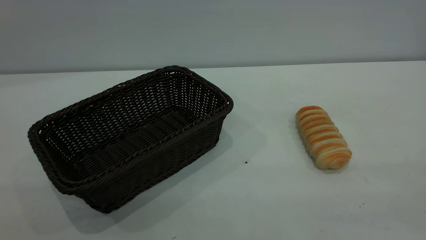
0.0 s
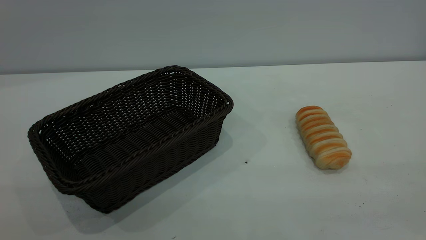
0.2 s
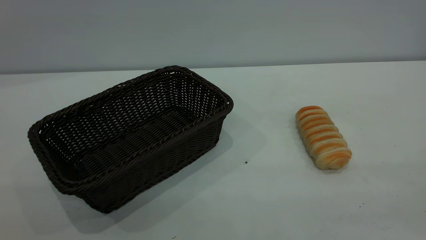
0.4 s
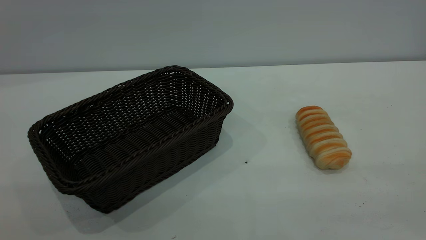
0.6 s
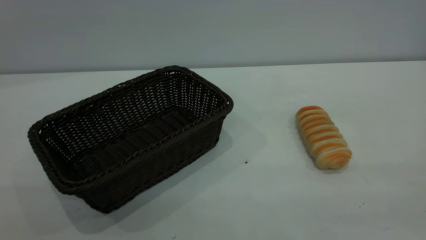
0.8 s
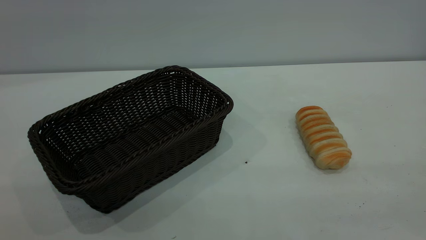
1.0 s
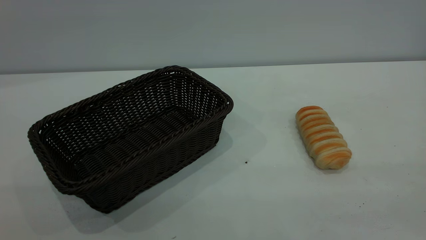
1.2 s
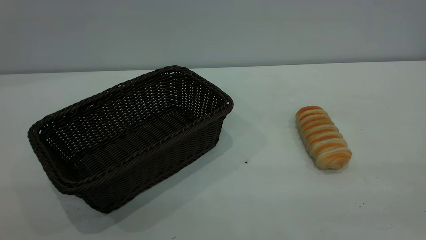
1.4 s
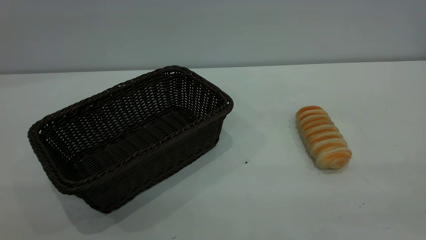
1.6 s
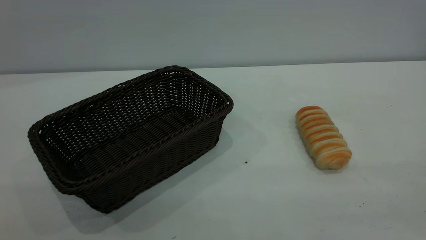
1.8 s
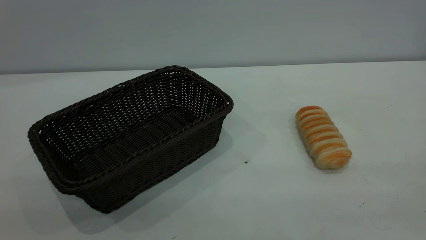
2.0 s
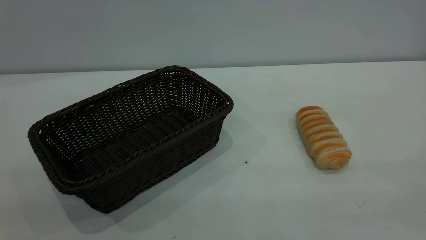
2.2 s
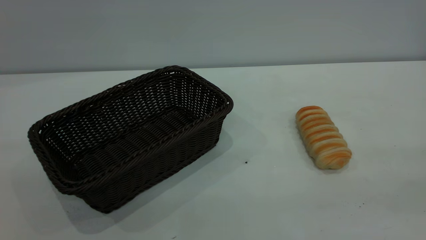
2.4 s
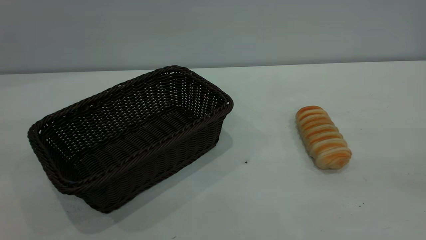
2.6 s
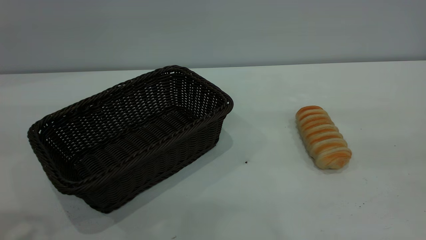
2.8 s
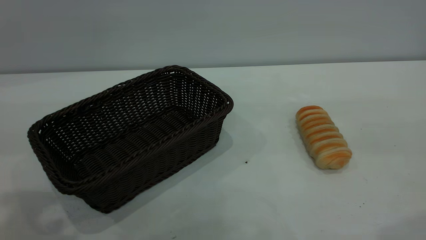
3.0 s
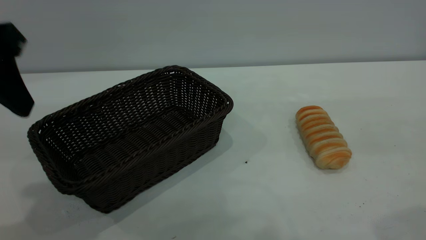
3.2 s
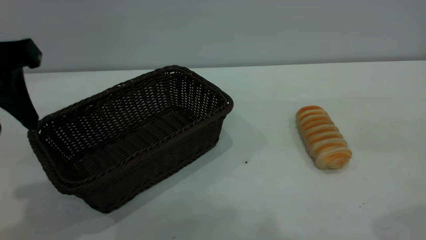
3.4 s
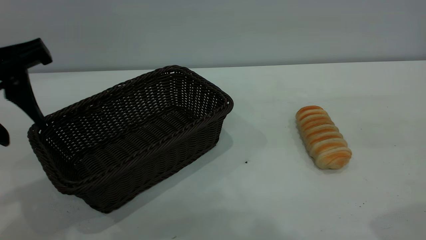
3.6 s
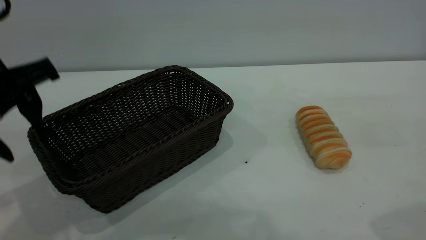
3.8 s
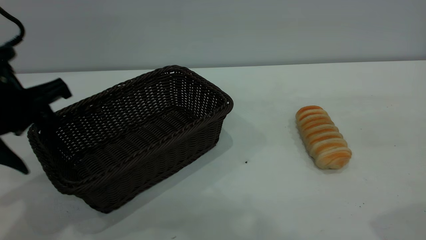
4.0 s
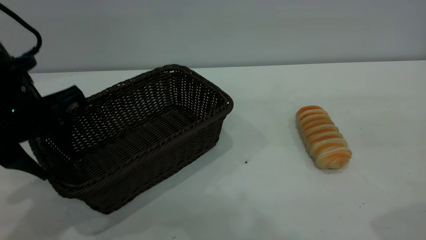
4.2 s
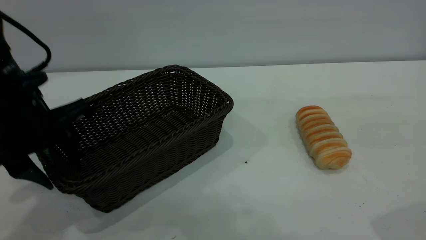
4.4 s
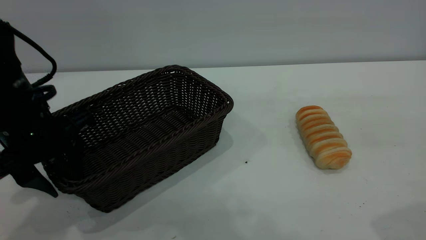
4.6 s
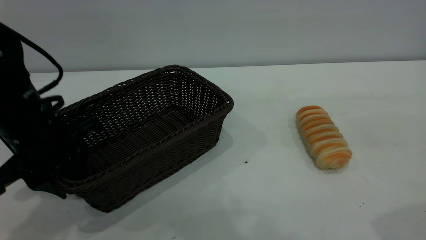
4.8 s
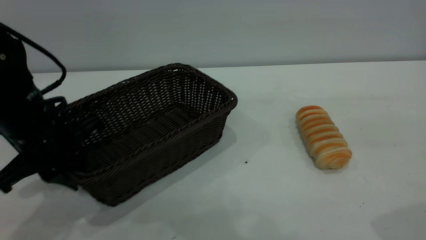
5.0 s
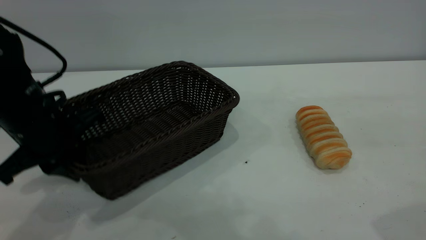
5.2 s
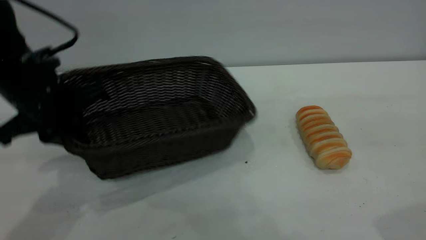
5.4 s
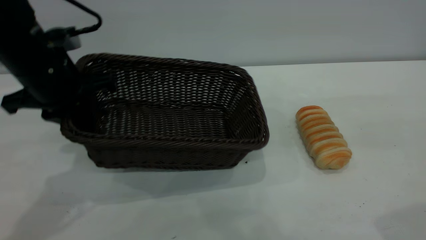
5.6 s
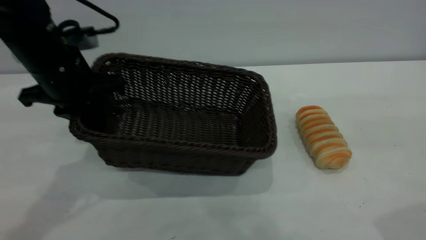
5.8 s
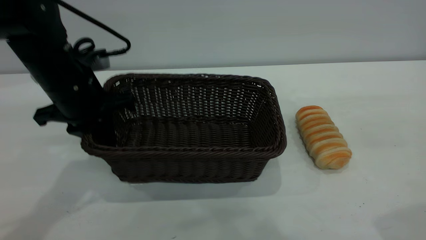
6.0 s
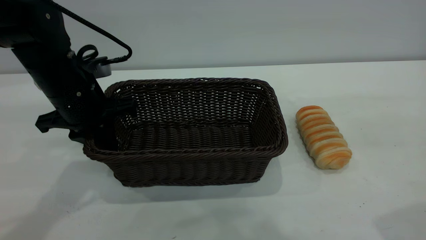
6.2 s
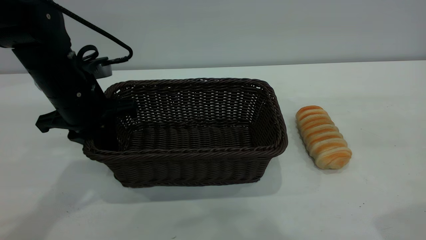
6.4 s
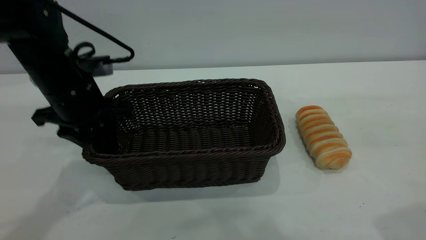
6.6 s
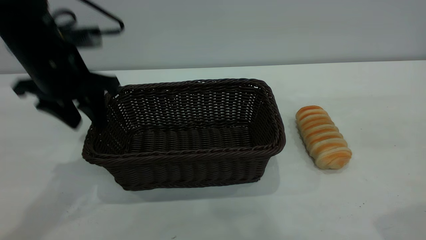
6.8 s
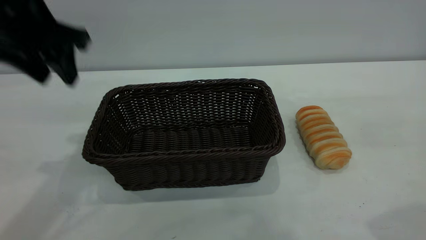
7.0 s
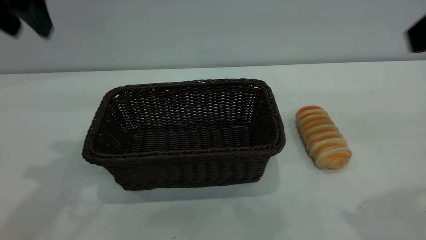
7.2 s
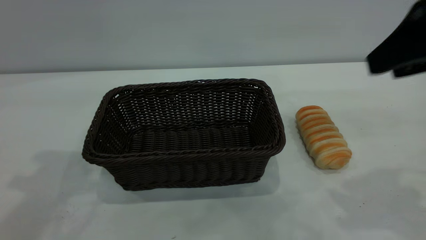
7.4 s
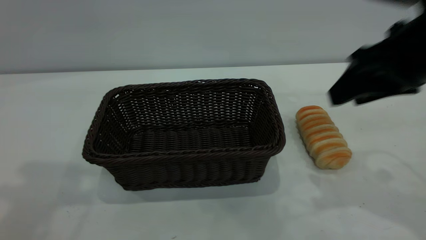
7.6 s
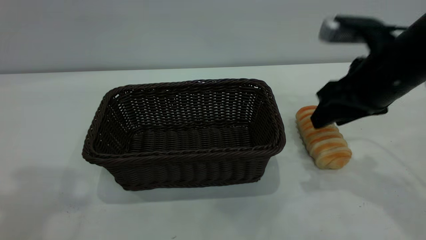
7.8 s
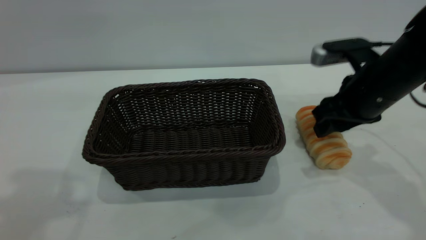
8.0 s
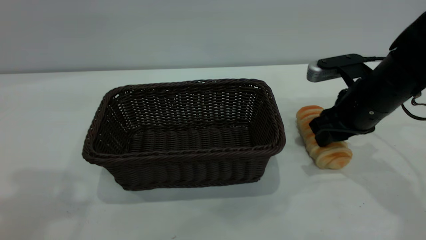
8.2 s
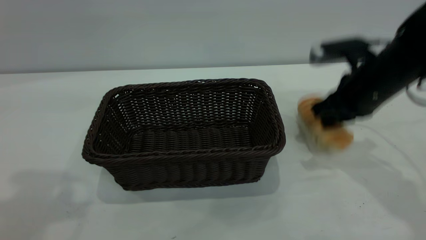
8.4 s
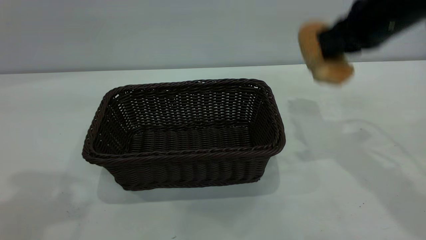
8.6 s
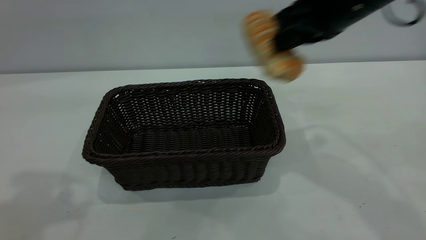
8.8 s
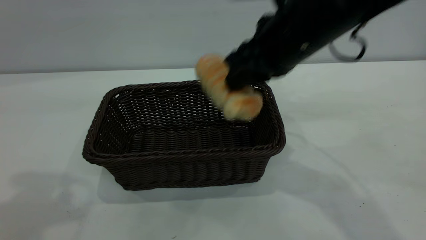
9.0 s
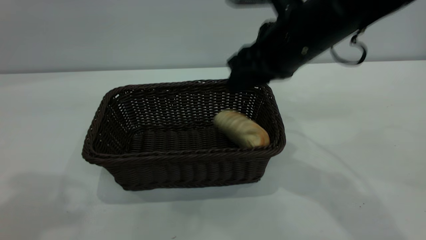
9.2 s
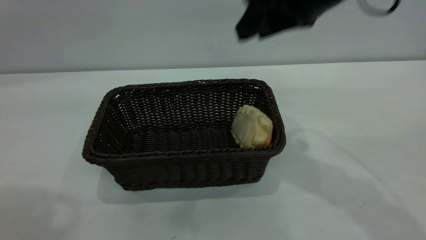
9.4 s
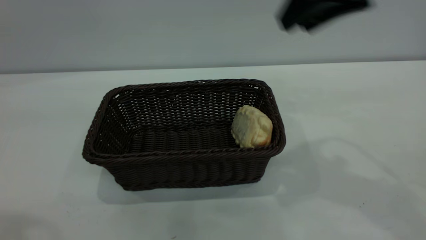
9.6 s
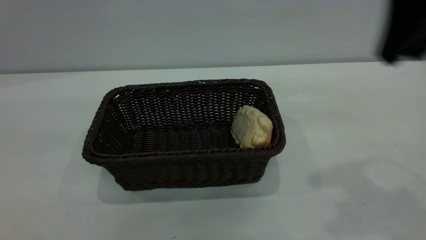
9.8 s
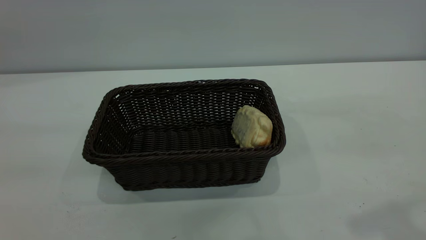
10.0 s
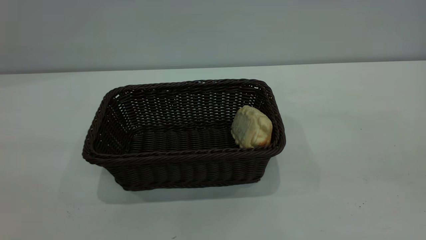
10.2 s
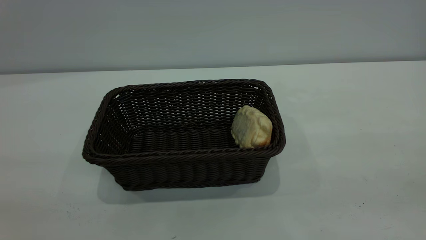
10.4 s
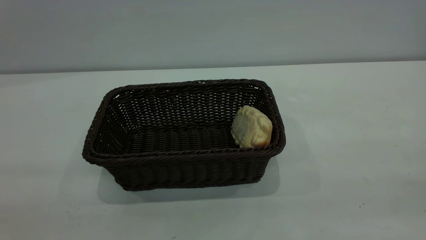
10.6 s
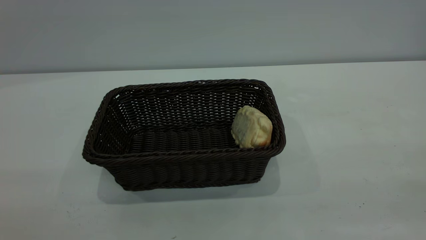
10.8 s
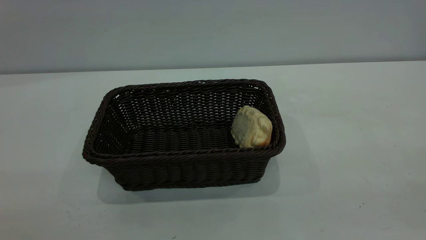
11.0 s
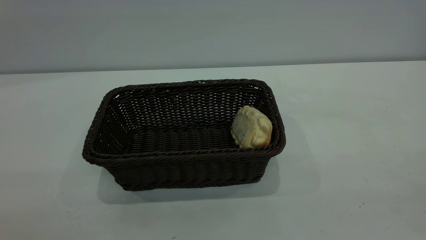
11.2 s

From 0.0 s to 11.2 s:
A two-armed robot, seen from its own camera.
Task of the whole recording: One hand grasps the black basket and places it in the middle of the table, while the other hand picks up the long bread and puts it into the black basket.
Step, from 0.0 s to 7.0 s: Move the basket to the center of view.
Step, from 8.6 s to 9.2 s: place the bread into the basket.
From 0.0 s to 1.6 s: Both grippers stay about where they are.
From 1.6 s to 3.2 s: The left gripper moves forward, some 25 cm.
From 3.2 s to 4.8 s: The left gripper moves downward, about 15 cm.
From 4.8 s to 6.4 s: The left gripper shifts about 5 cm forward, and closes.
From 6.4 s to 8.0 s: The right gripper is displaced downward and forward by about 25 cm. Meanwhile the left gripper moves upward and backward, some 30 cm, and opens its fingers.
From 8.0 s to 9.6 s: The right gripper moves up and down over roughly 20 cm, changing direction 2 times, and closes, then opens again. The left gripper shifts approximately 10 cm backward.
From 9.6 s to 11.2 s: The right gripper moves backward and to the right, approximately 30 cm.

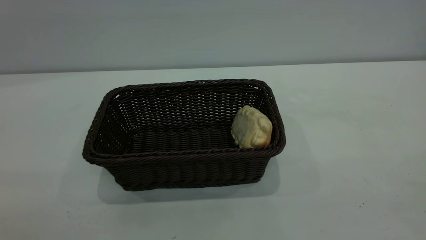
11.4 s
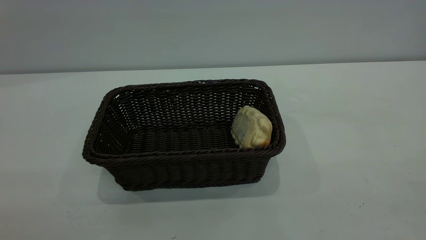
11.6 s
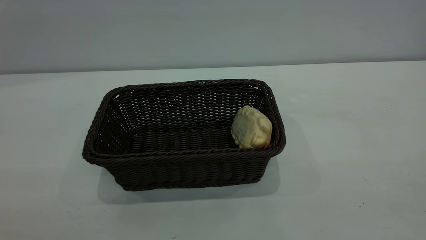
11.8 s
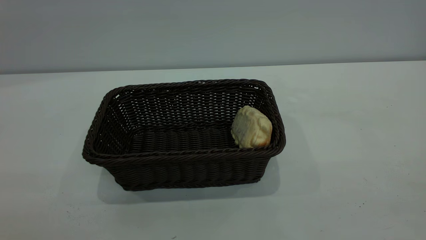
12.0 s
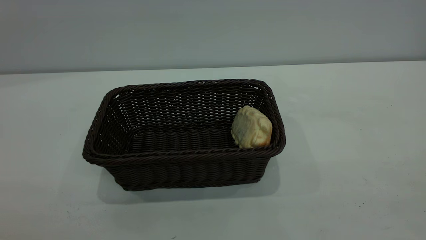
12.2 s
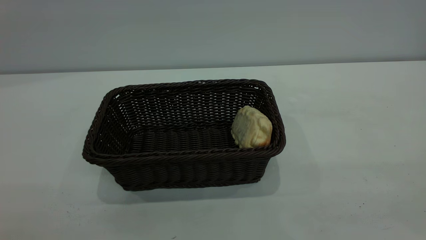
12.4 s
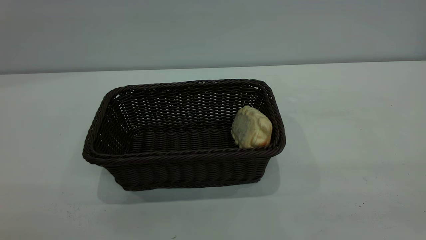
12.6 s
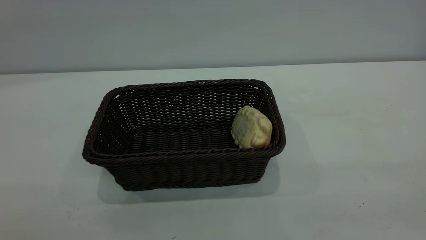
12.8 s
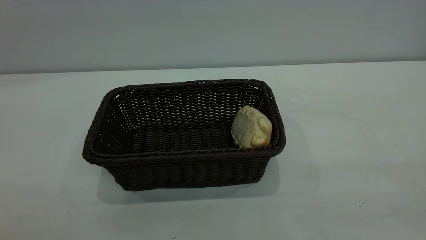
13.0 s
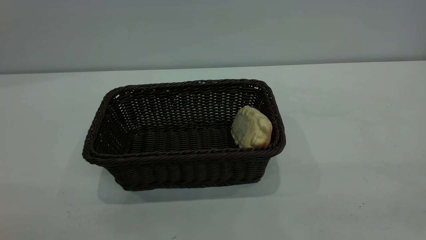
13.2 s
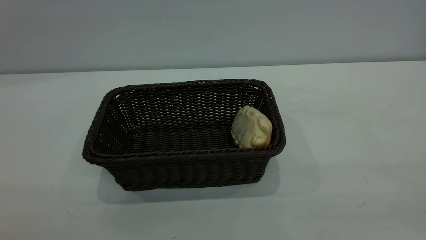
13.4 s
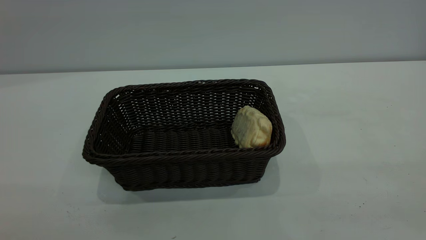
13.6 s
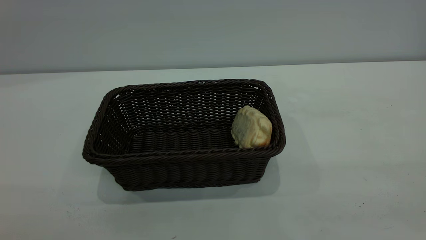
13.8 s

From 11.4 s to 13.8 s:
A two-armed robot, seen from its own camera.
Task of the whole recording: One hand grasps the black basket and places it in the middle of the table, while the other hand picks up the long bread and puts it into the black basket.
From 12.6 s to 13.8 s: The two grippers keep their place.
